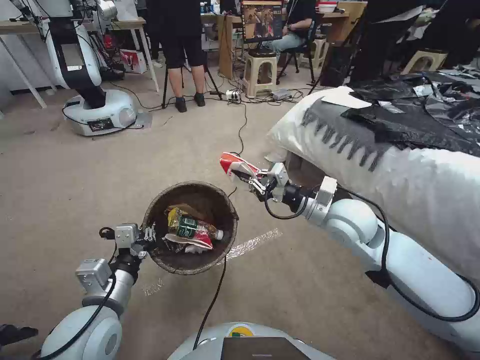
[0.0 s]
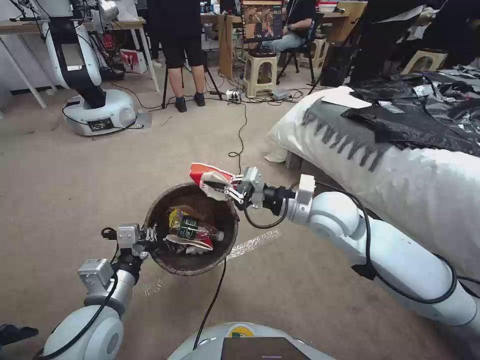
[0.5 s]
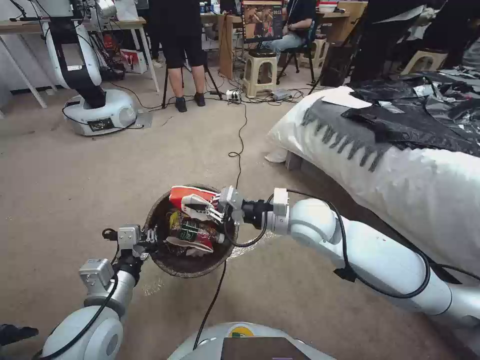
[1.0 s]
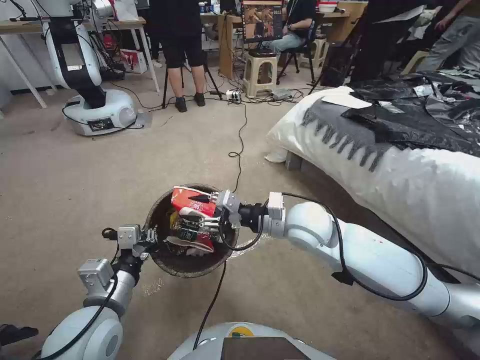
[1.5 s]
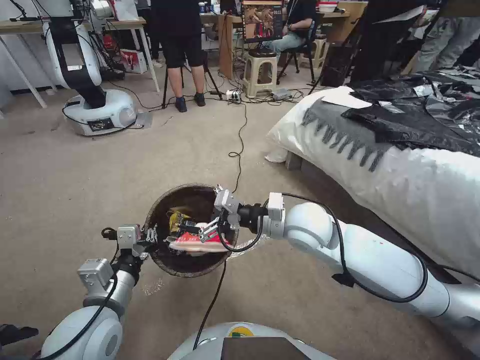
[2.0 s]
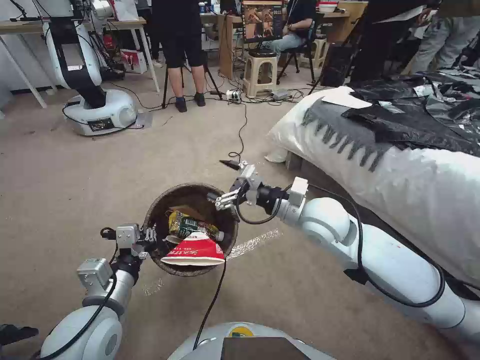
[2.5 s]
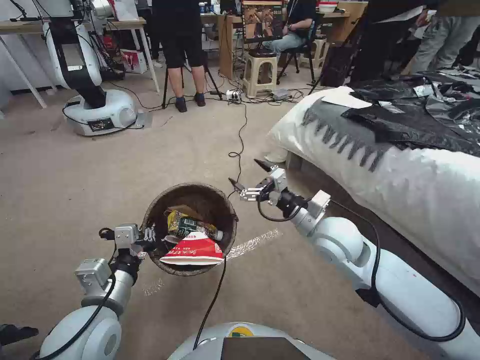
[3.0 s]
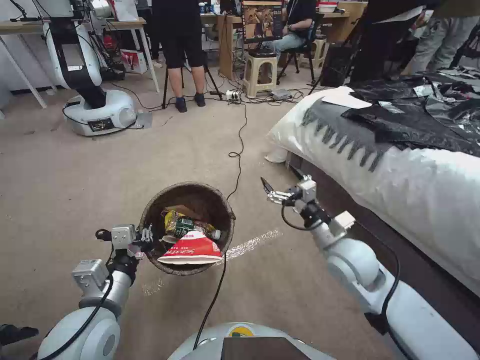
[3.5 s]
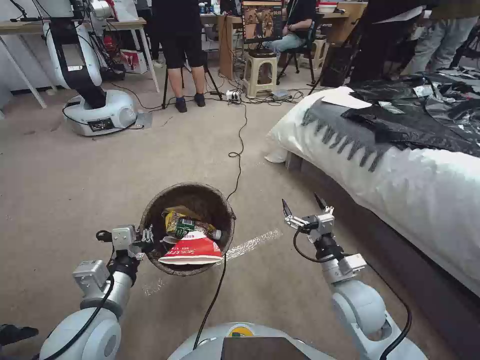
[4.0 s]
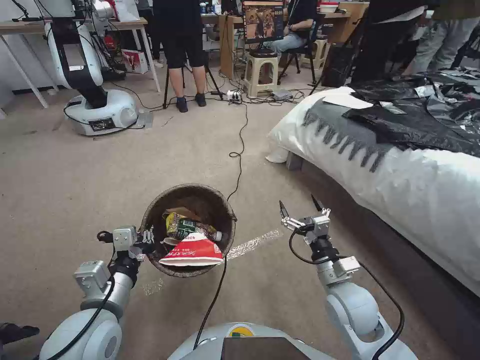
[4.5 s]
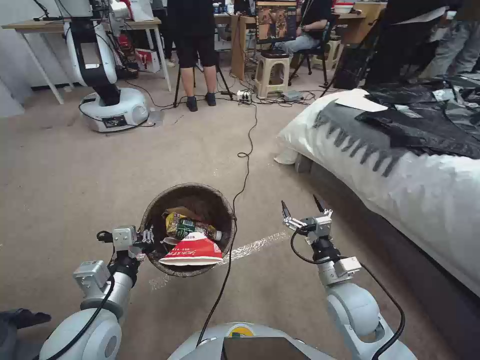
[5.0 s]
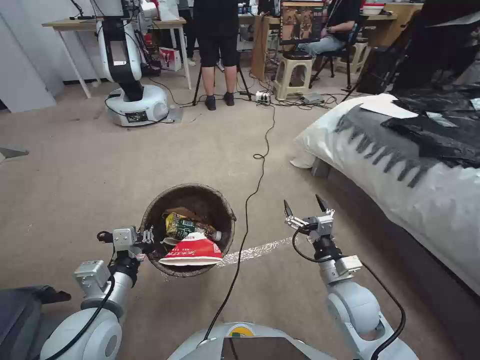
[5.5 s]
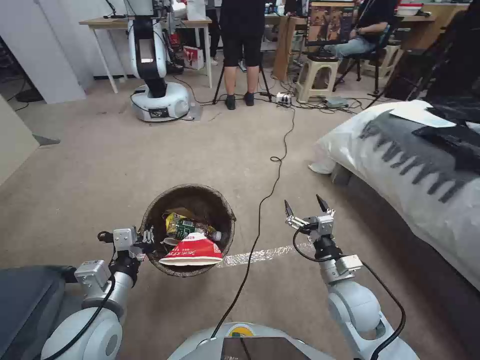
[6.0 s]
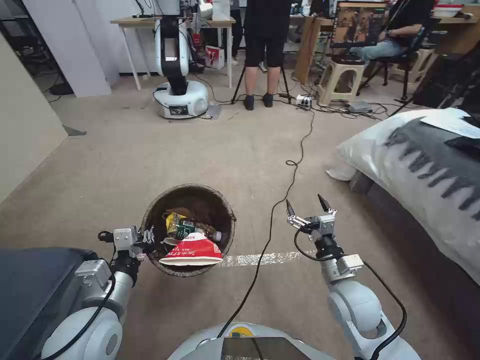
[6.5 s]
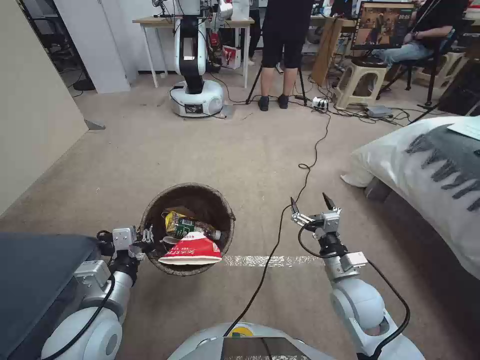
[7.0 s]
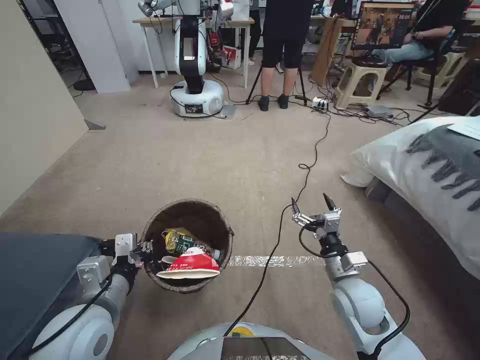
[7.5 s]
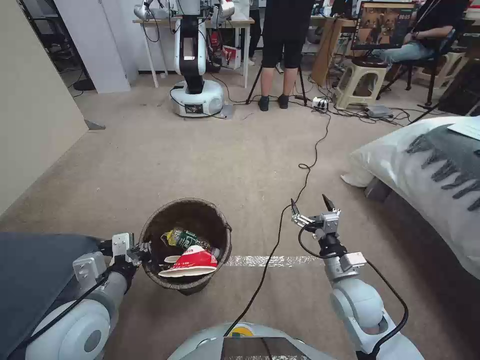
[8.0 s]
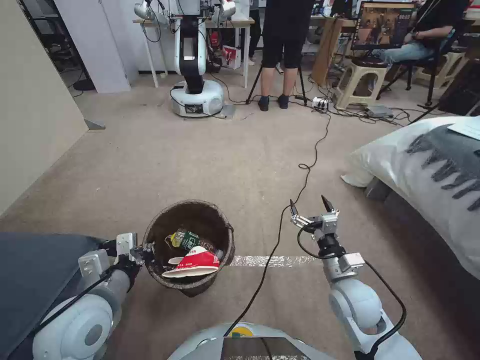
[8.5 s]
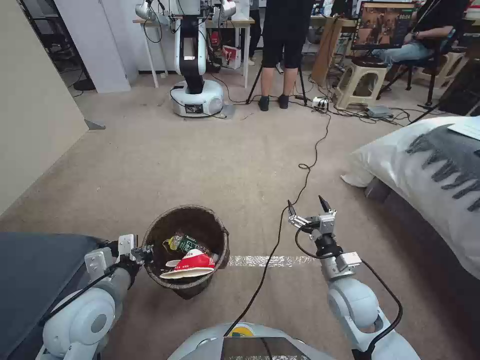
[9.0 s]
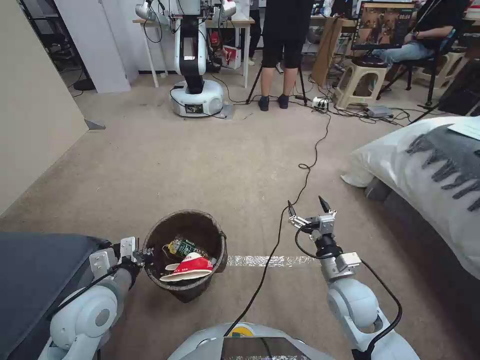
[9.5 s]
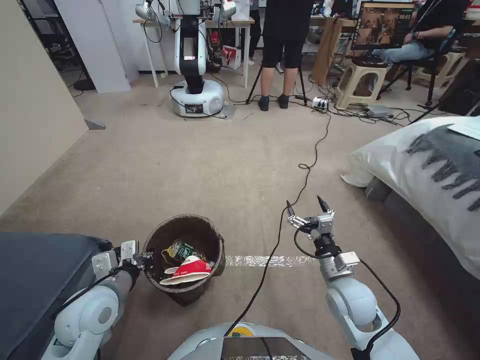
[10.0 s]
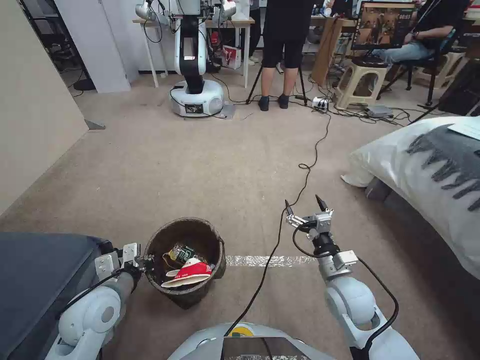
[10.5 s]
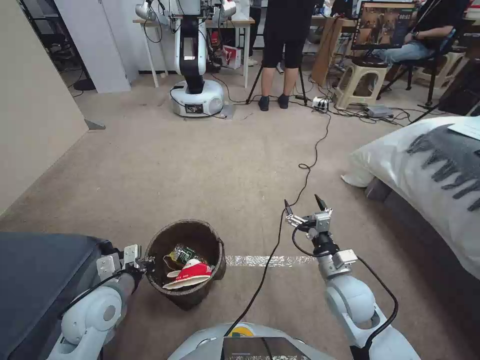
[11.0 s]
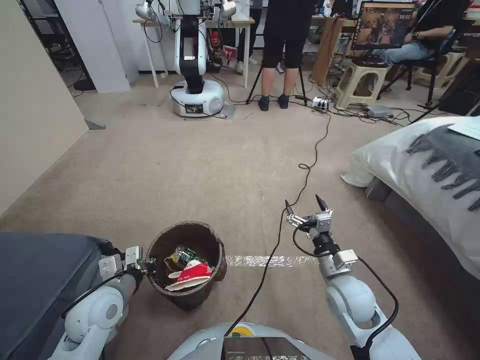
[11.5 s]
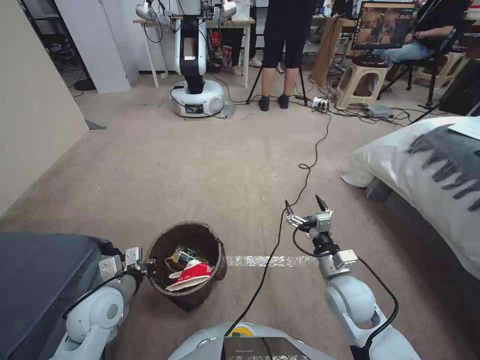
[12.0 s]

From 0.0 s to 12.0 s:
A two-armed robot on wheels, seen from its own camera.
Task of the whole recording: Pick up the trash bin, then pick up the garbage from the floor and place it into the trash bin.
From 0.0 s to 2.0 s: The right gripper shifts about 10 cm to the left, and opens.
From 2.0 s to 4.0 s: The right gripper heads downward, to the right and backward, covering some 20 cm.
From 8.0 s to 10.0 s: The left gripper travels downward by roughly 5 cm.
From 10.0 s to 12.0 s: The grippers make only small movements.

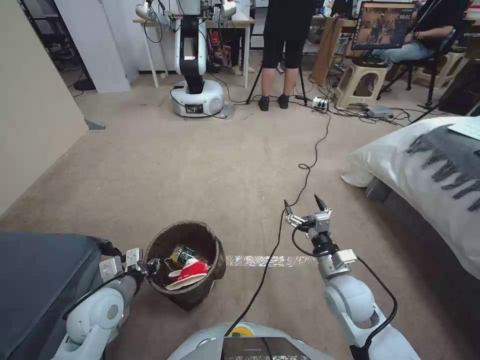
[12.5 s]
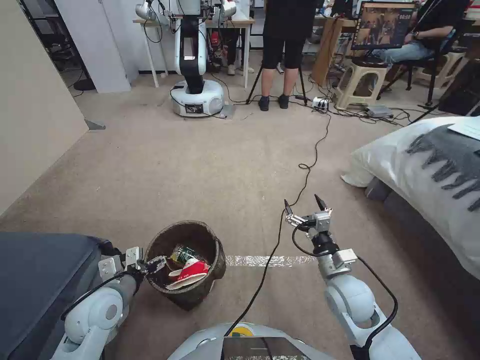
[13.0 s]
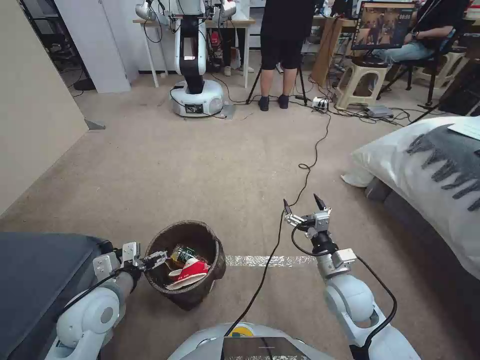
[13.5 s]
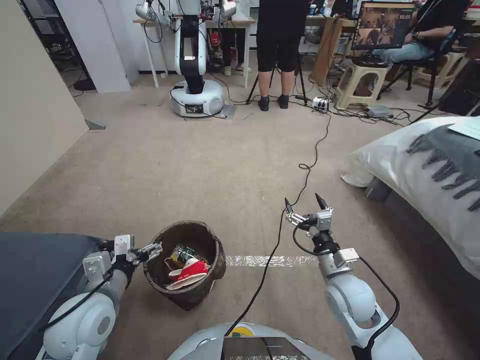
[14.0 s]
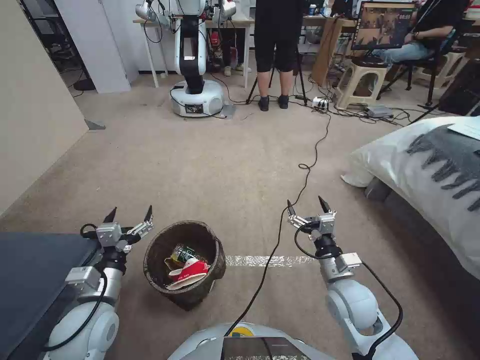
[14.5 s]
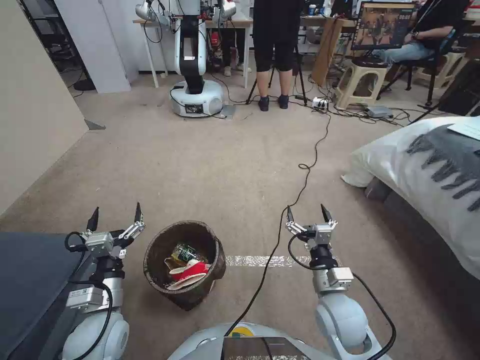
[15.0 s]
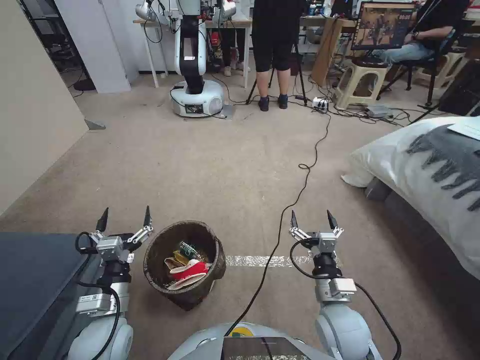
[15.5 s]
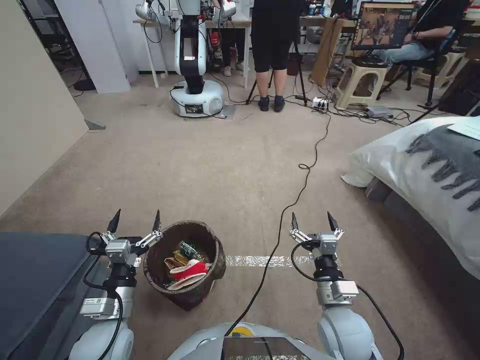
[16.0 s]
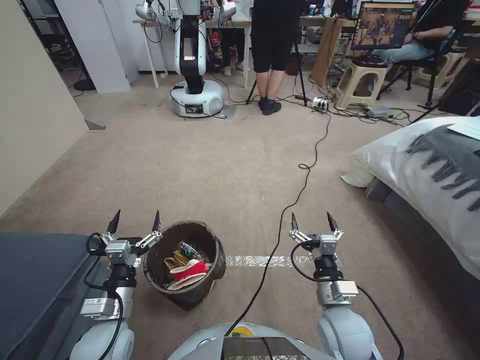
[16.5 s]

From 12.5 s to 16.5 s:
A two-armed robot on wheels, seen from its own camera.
Task of the whole recording: Pick up the trash bin, then pick up the garbage from the floor and place it into the trash bin.
From 12.5 s to 14.5 s: The left gripper ends up roughly 5 cm from where it was, and opens up.
From 14.5 s to 16.5 s: The left gripper changes place by roughly 5 cm, while the right gripper heads backward, covering about 5 cm.

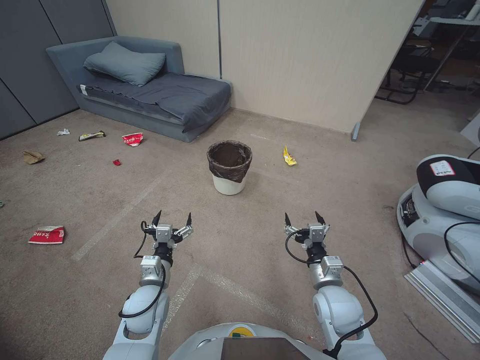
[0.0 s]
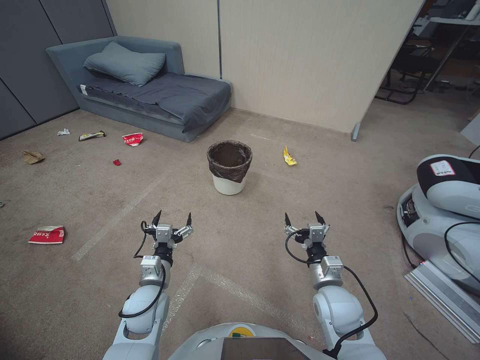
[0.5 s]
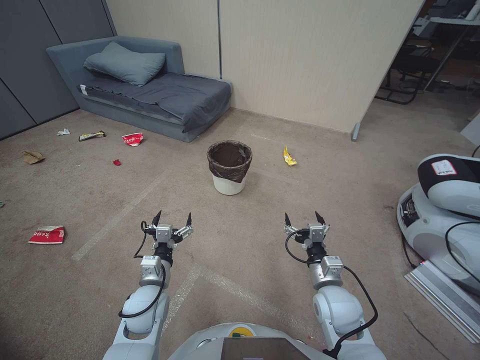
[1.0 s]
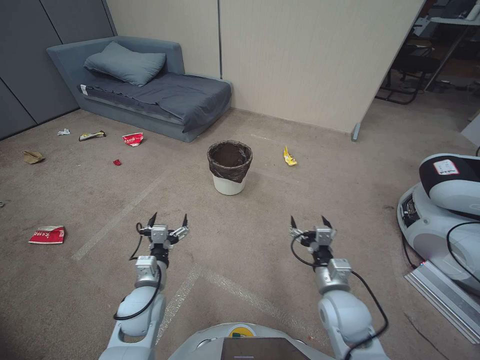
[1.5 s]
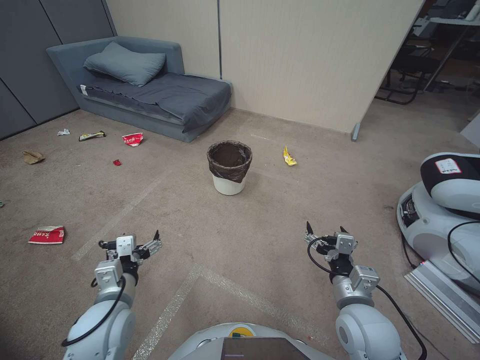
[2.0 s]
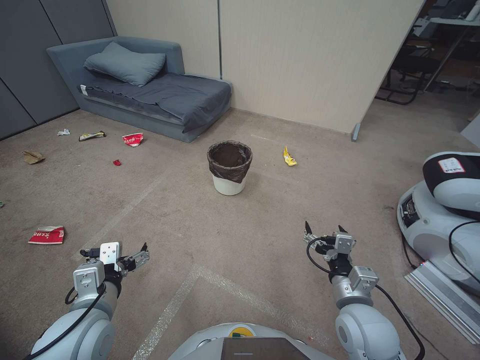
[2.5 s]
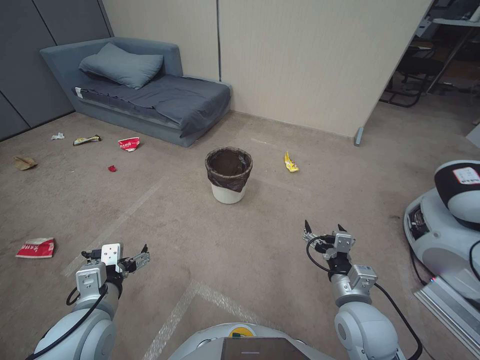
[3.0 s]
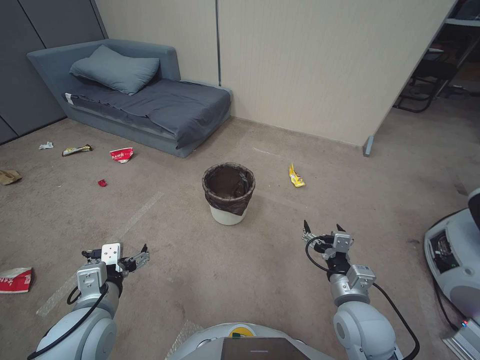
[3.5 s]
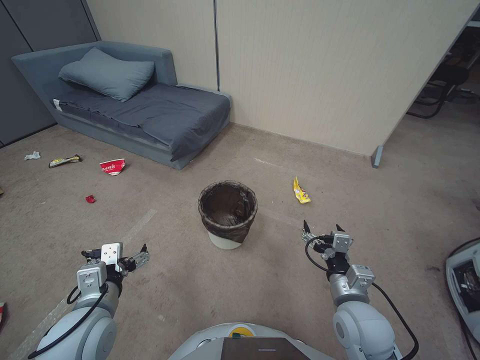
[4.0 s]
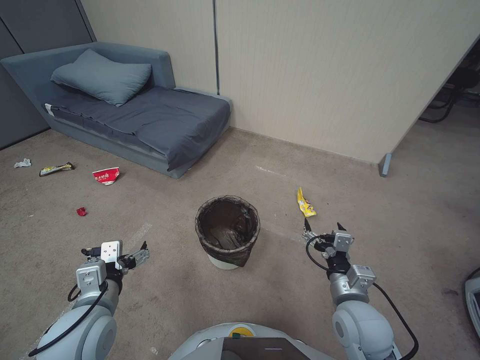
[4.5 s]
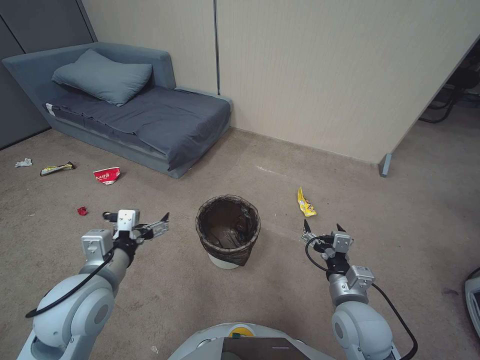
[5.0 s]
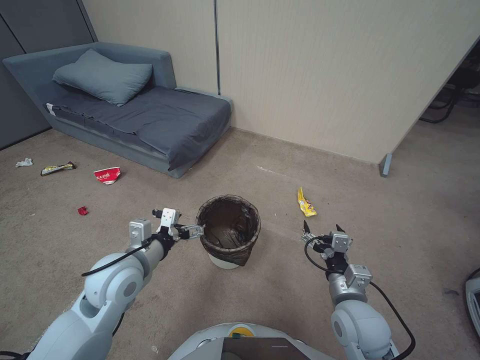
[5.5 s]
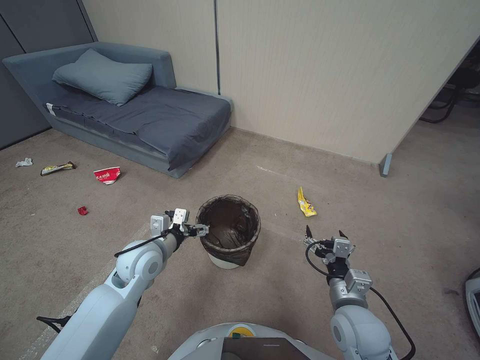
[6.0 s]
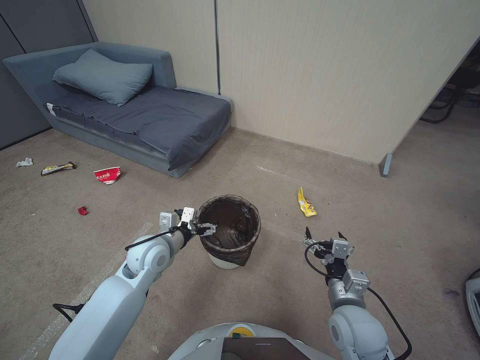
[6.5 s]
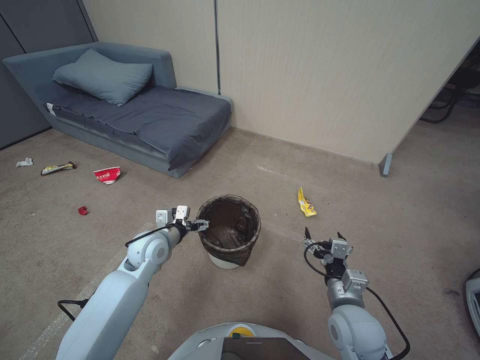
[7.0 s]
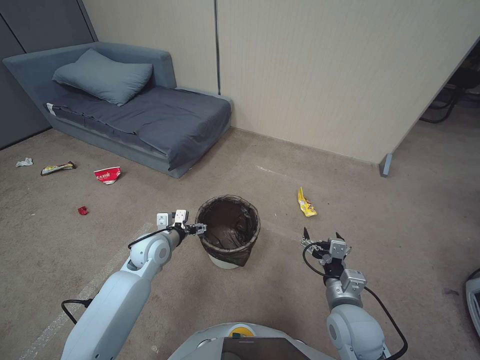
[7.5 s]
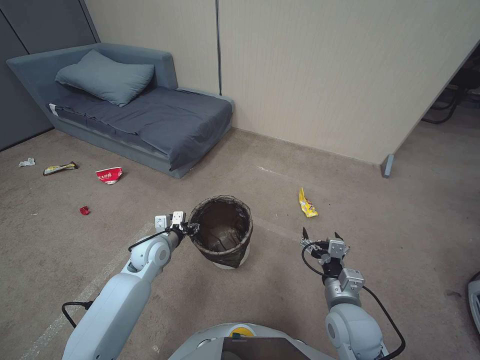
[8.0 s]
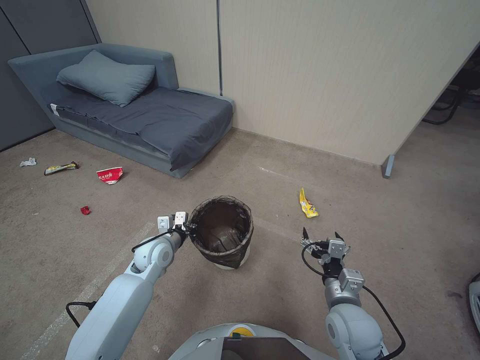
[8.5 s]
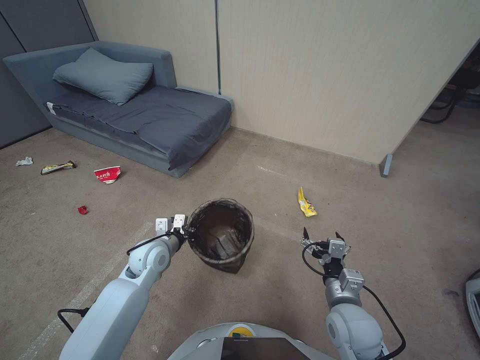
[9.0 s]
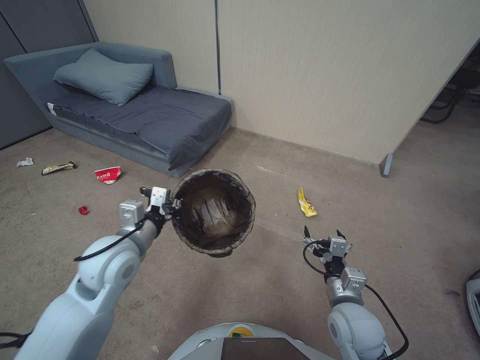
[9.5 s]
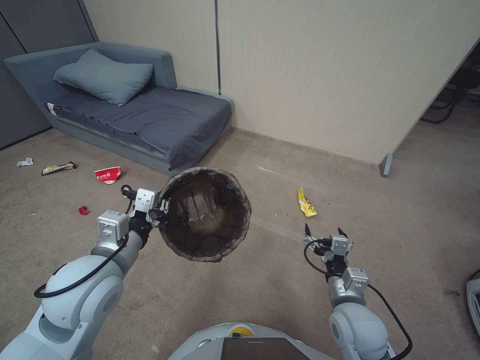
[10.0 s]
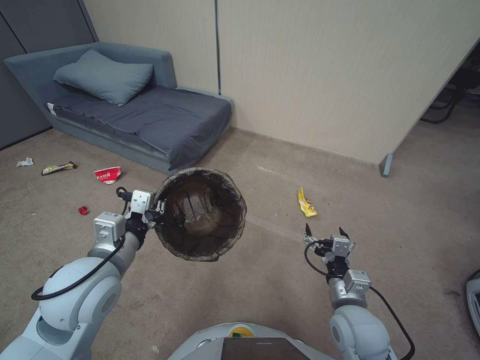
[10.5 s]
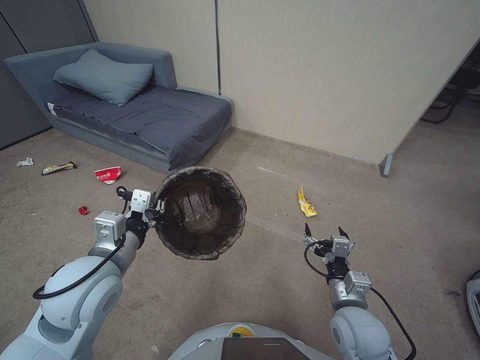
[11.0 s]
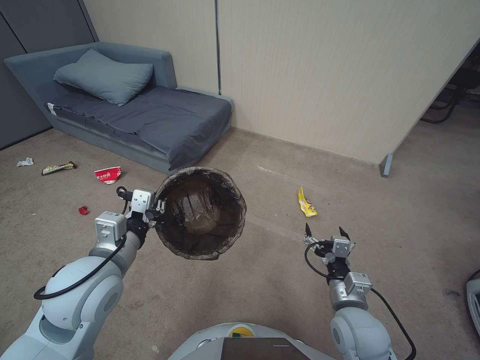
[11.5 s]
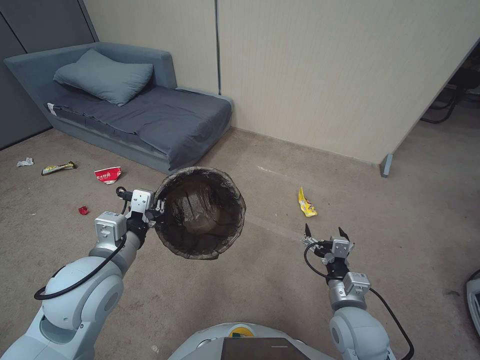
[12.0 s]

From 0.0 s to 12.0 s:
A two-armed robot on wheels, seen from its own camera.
Task of the whole recording: Pick up the trash bin, then pick up the garbage from the floor and place it into the trash bin.
From 2.0 s to 4.0 s: The left gripper goes roughly 5 cm upward.
From 4.0 s to 6.0 s: The left gripper shifts approximately 15 cm forward.
From 6.0 s to 8.0 s: The left gripper goes approximately 10 cm downward and forward, and closes.
From 8.0 s to 10.0 s: The left gripper is displaced upward and backward by some 25 cm, and closes its fingers.
From 10.0 s to 12.0 s: Both grippers stay about where they are.
